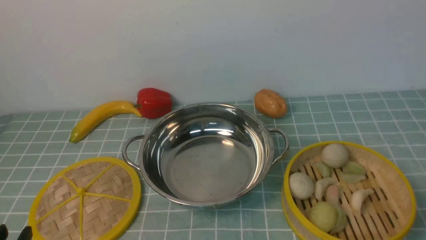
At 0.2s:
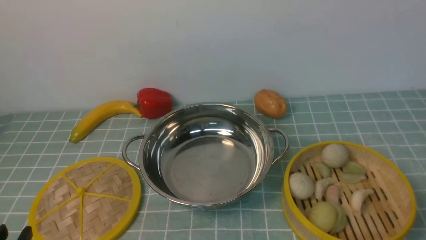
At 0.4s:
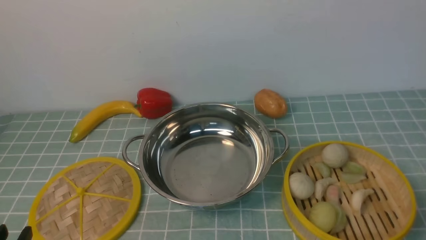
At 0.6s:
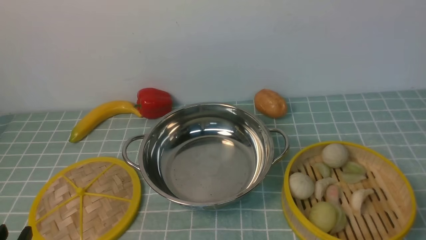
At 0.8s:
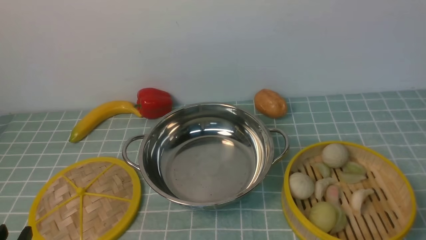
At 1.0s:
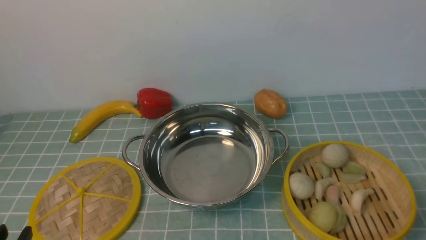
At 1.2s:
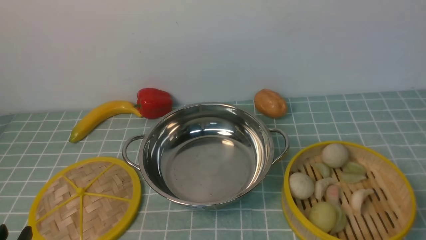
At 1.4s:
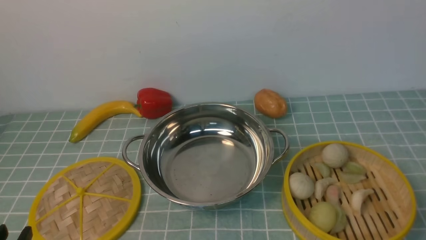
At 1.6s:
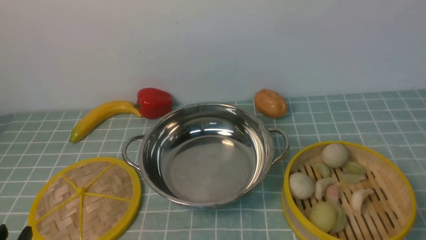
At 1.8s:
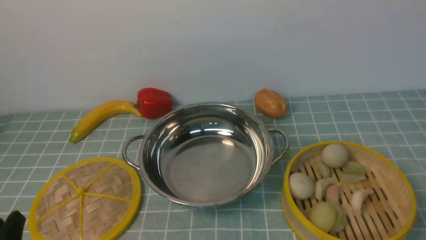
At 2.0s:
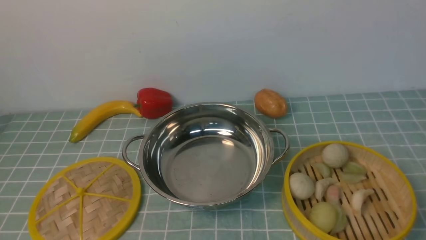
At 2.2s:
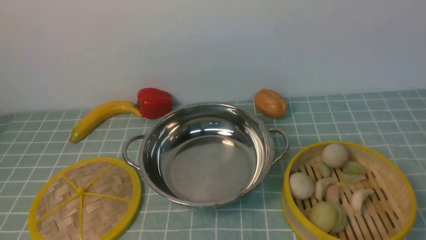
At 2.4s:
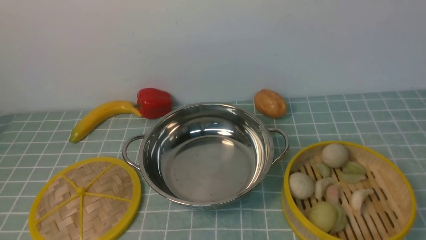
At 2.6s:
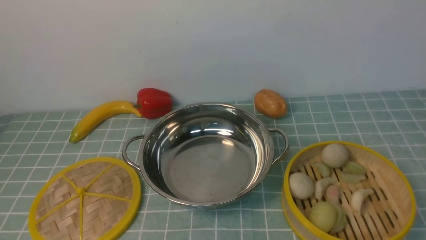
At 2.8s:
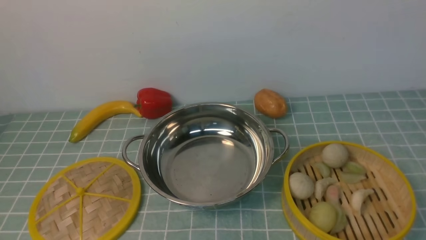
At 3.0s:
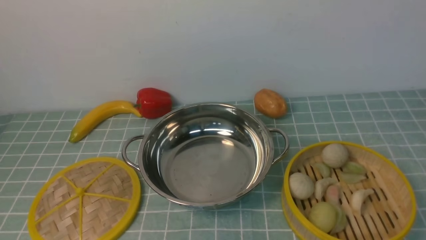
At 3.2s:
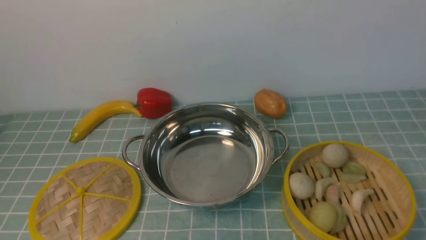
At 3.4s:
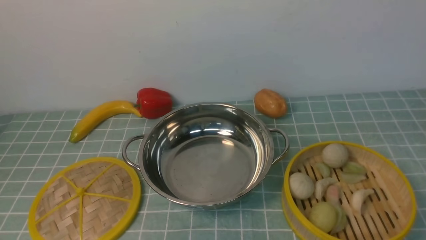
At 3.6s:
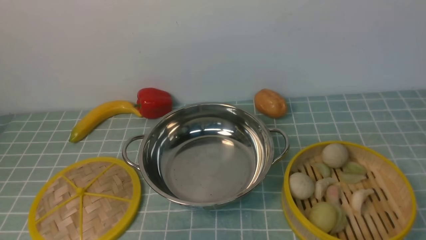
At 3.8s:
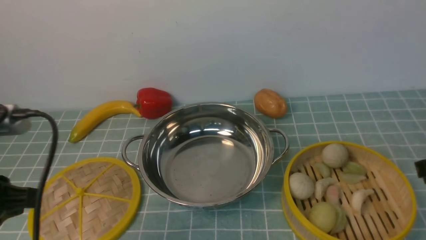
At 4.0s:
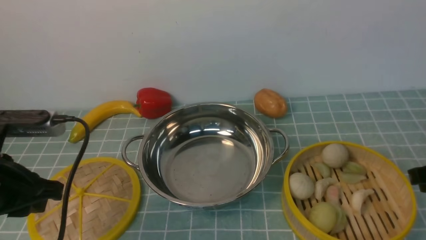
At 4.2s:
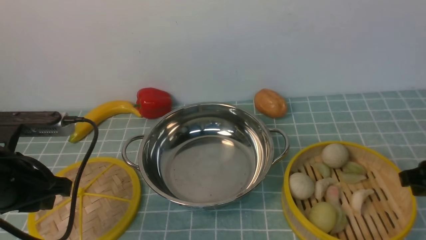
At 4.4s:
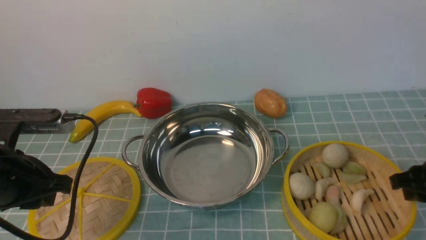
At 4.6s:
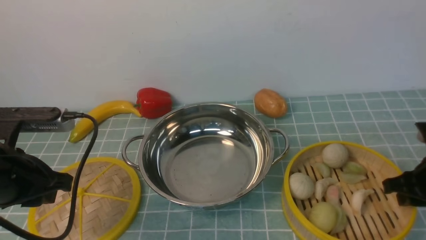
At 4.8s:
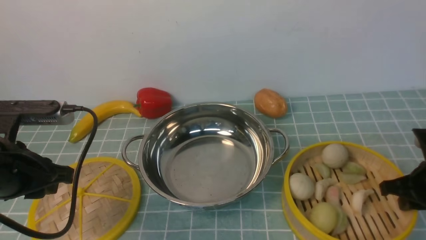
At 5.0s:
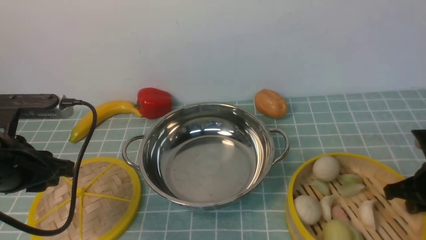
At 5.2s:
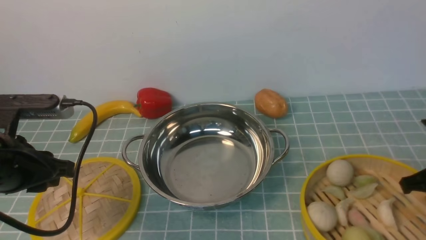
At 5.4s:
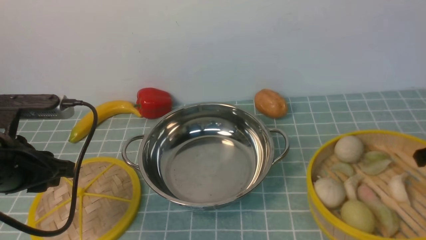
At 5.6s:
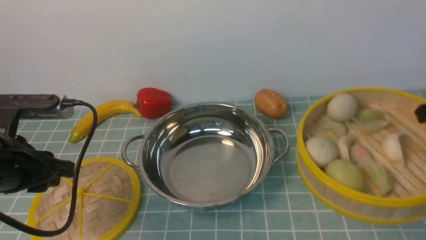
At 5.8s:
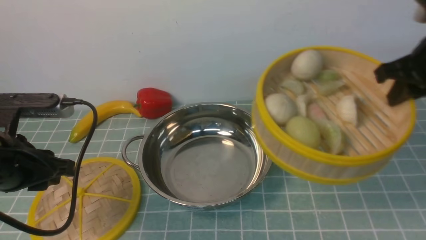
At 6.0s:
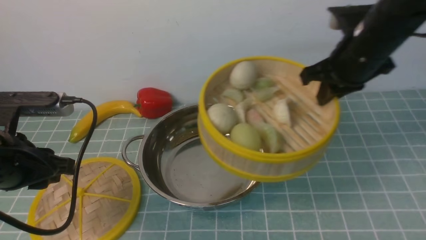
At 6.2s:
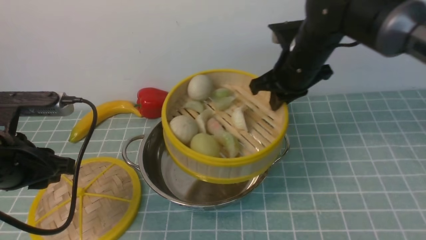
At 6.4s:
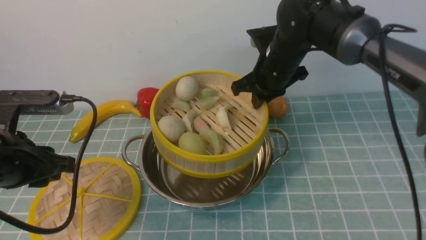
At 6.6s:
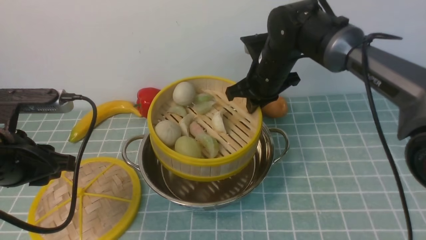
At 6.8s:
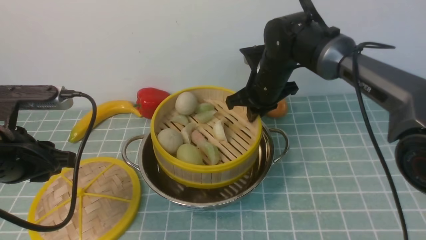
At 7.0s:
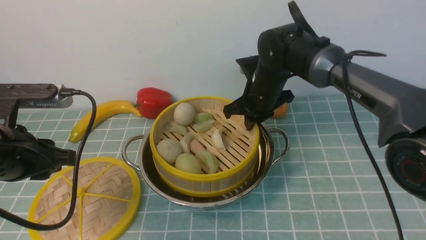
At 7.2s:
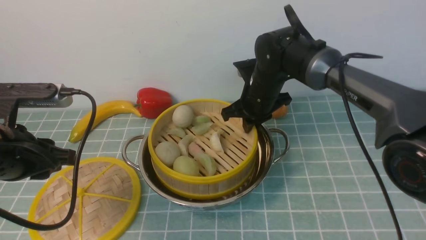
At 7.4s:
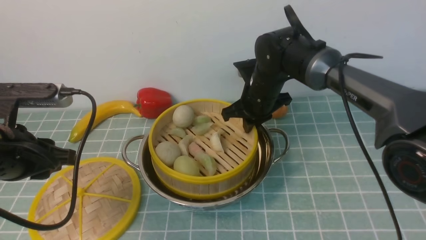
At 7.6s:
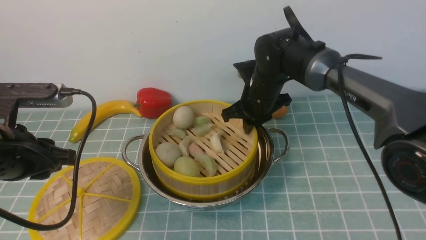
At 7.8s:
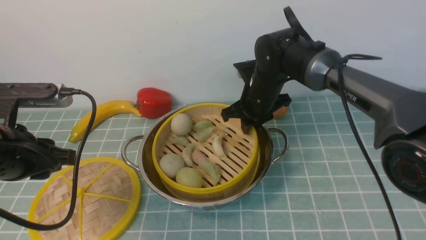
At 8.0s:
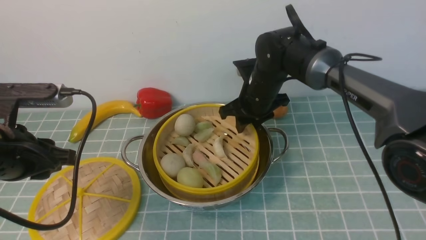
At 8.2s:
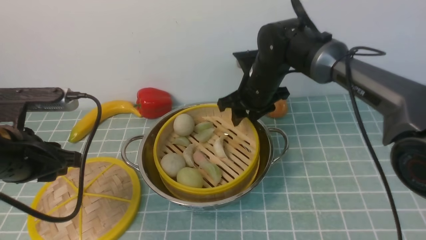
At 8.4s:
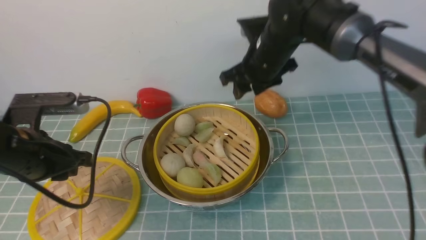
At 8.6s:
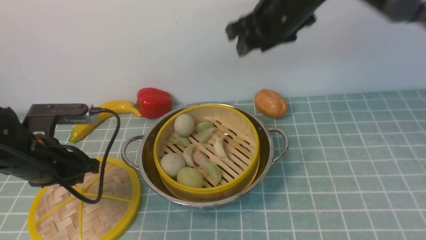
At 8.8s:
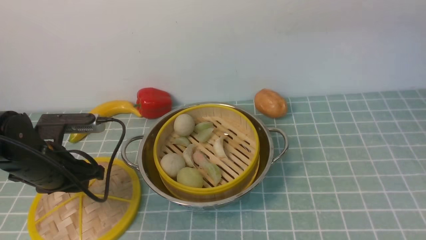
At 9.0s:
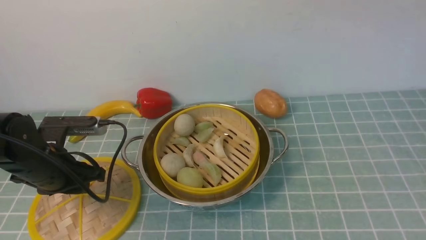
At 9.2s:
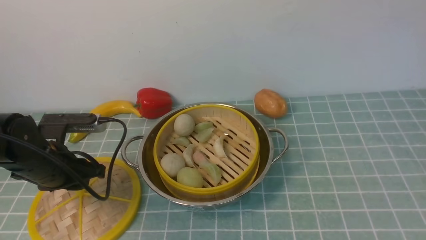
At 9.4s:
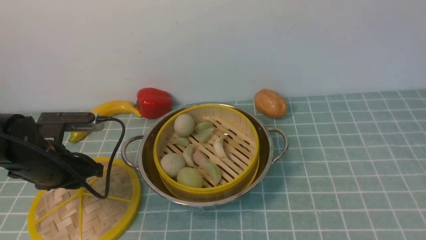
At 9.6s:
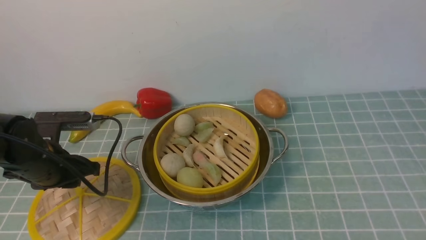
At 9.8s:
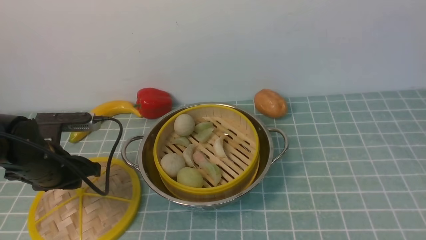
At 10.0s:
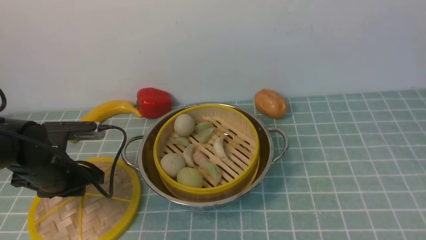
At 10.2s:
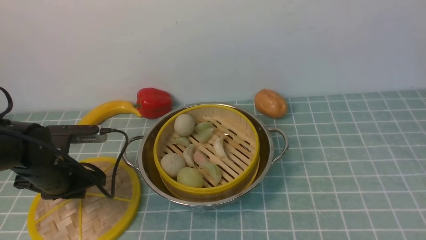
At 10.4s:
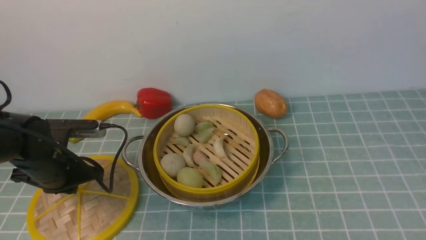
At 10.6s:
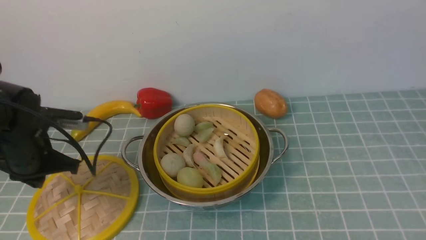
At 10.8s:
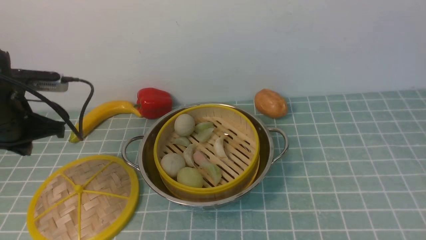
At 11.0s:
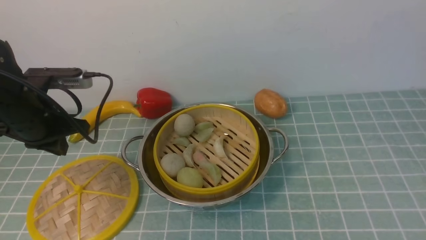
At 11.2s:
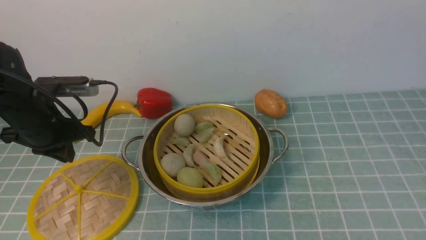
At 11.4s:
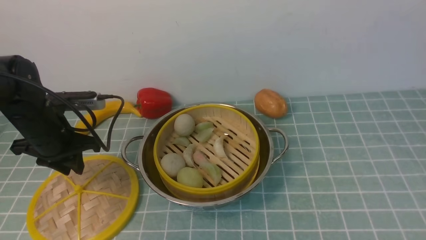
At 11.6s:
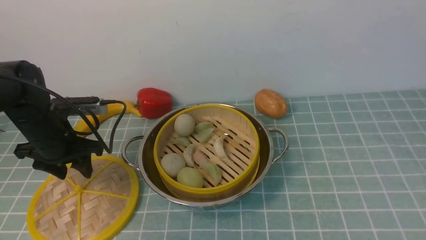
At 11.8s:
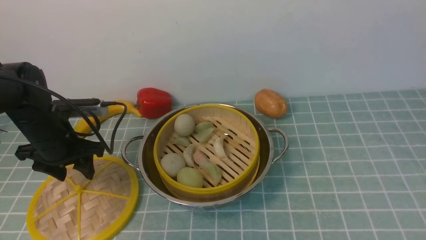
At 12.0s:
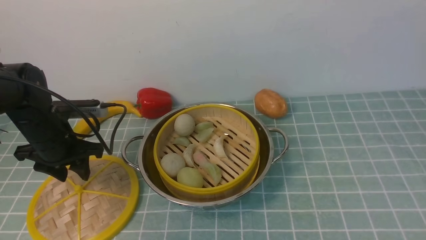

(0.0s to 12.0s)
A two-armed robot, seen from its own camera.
Task of the whole recording: place the steamer in the pot on the blue tablecloth, and put the lid on the steamer.
Step, 0.0s - 5.4s: use the right arm to lift the steamer closest to it.
Step, 5.6s - 8.4s: use the right arm to put the steamer into the iron steamer pot in the middle.
3.0s - 4.4s: The left gripper heads forward, covering some 20 cm; the right gripper shifts roughly 20 cm downward and forward.
4.4s - 6.0s: The right gripper shifts about 20 cm forward, to the left and upward, and closes its fingers.
6.0s - 7.6s: The right gripper heads to the left, downward and forward, covering about 20 cm.
7.6s - 9.0s: The right gripper goes approximately 40 cm upward and backward, and opens its fingers; the left gripper shifts roughly 10 cm downward and forward.
9.0s - 10.4s: The left gripper closes.
10.4s - 12.0s: The left gripper opens its fingers.

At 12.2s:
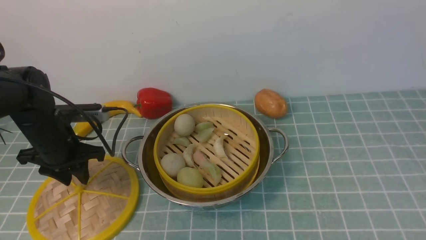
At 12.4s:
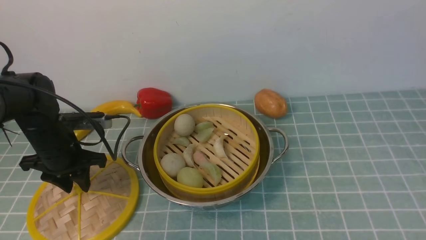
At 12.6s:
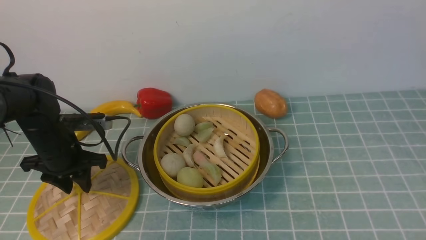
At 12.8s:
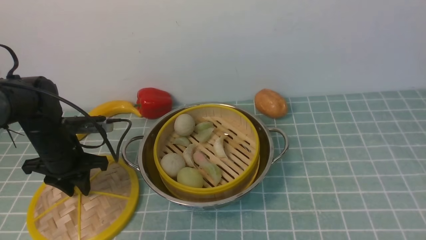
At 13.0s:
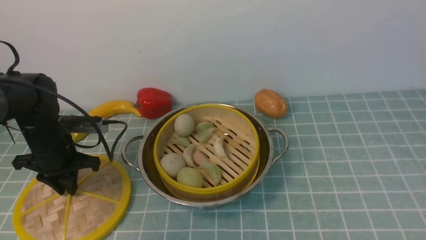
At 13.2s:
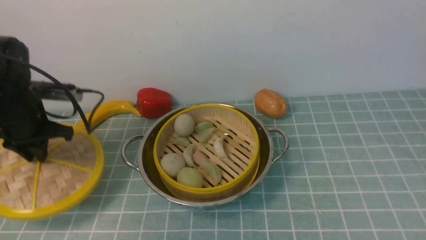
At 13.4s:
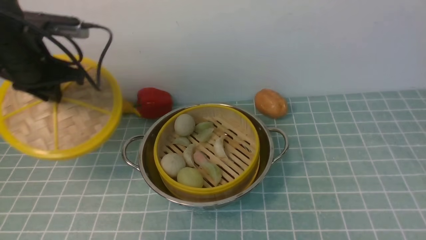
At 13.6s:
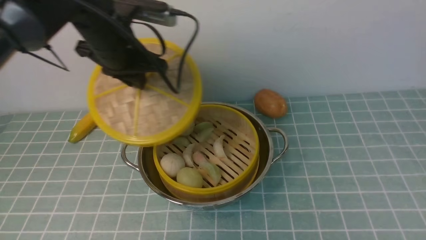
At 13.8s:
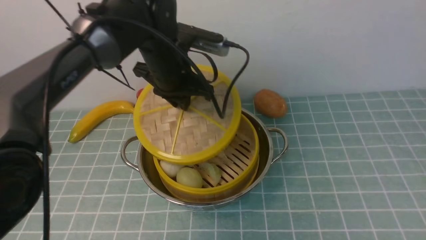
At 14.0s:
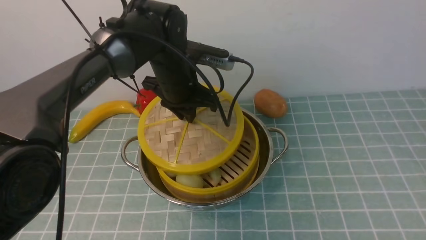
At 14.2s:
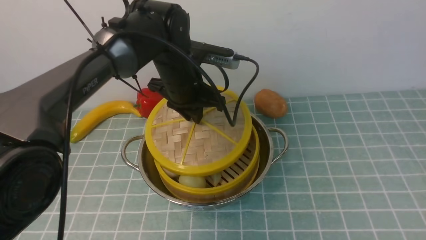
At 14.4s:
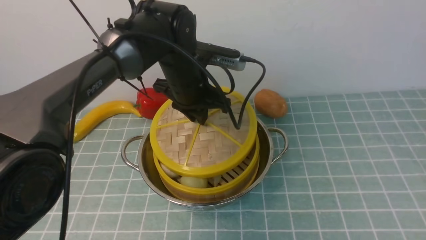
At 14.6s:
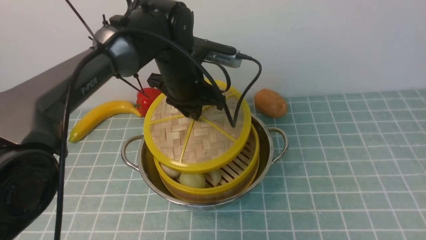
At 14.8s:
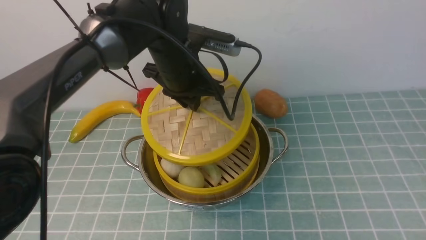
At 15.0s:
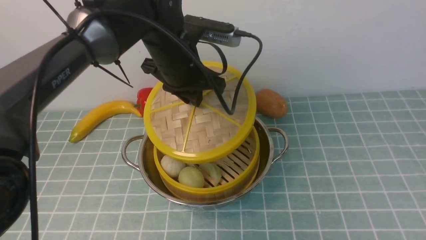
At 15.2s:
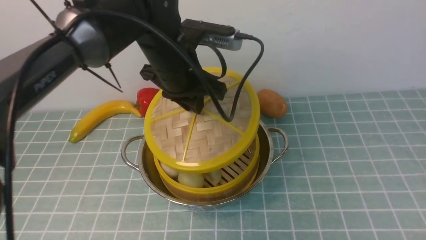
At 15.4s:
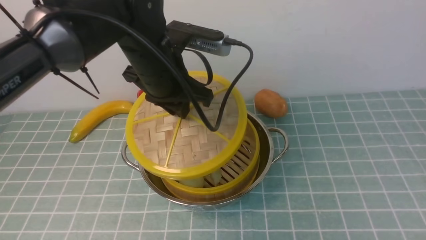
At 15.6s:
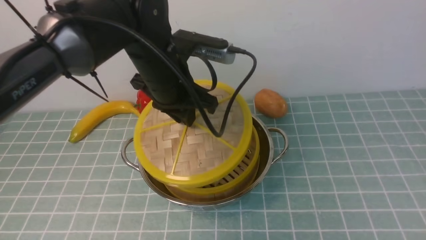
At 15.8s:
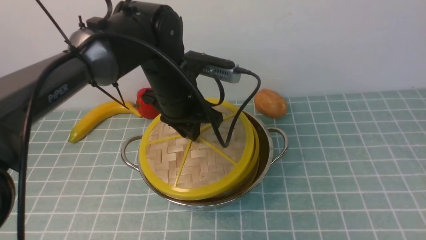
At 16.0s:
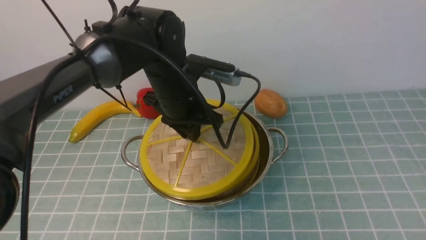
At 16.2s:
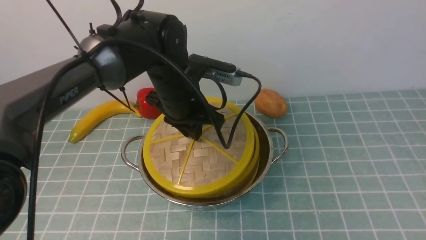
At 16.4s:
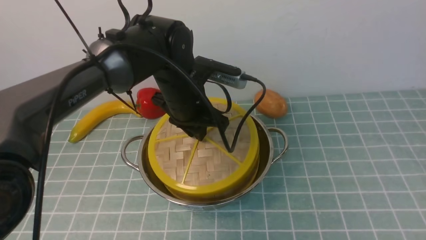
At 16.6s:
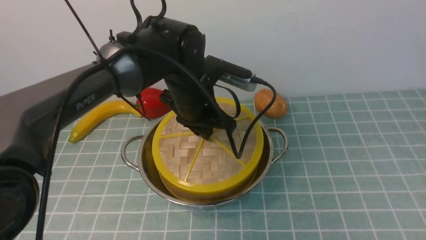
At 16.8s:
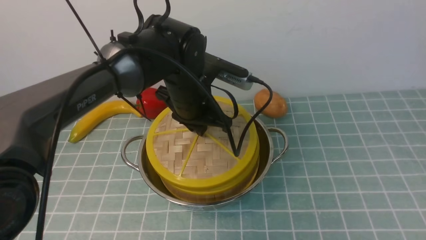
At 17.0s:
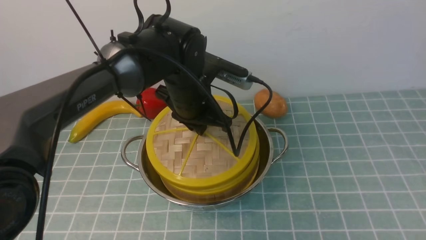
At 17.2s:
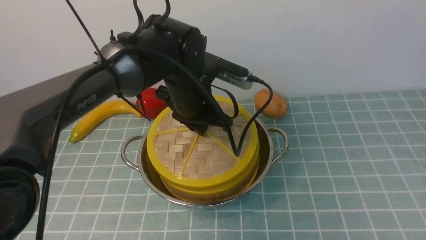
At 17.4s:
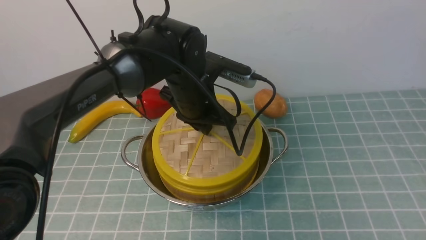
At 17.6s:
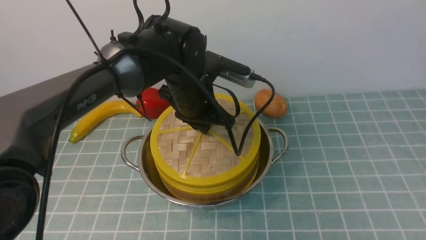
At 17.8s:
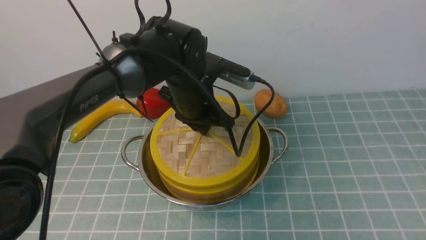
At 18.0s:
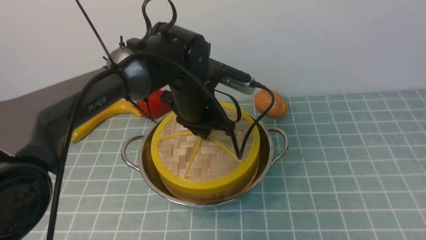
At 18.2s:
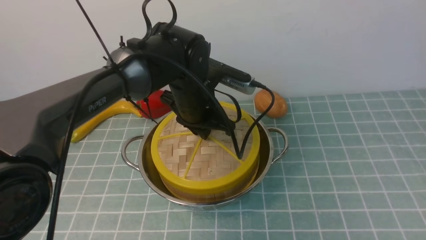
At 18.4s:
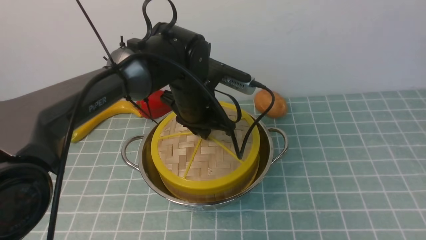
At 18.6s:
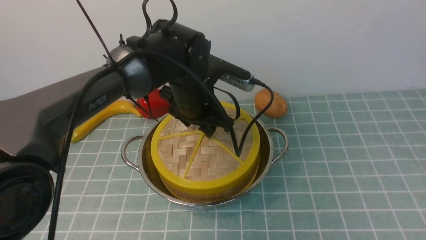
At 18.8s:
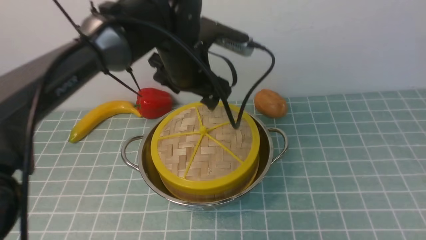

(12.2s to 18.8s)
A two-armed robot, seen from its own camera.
Task of the whole recording: place the steamer in the pot on the blue tablecloth, and put the lid on the steamer.
12.2s - 13.8s: The left gripper shifts approximately 20 cm to the right and upward, and closes its fingers.
13.8s - 15.4s: The left gripper changes place by some 5 cm.
15.4s - 17.2s: The left gripper shifts roughly 5 cm downward.
17.2s - 18.8s: The left gripper shifts about 10 cm upward, and opens up.
